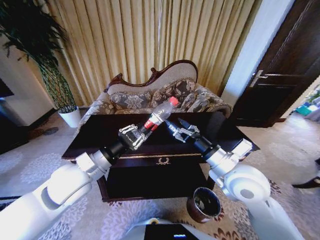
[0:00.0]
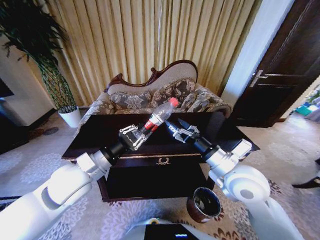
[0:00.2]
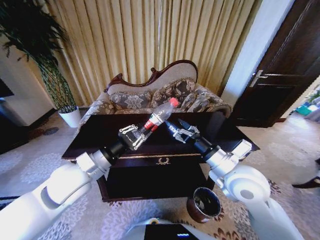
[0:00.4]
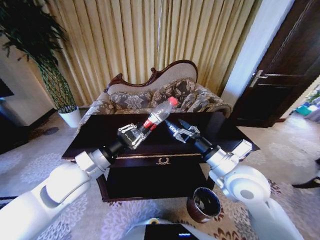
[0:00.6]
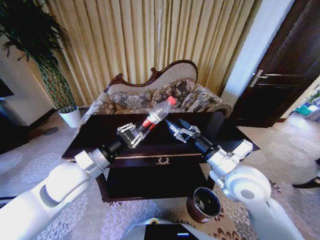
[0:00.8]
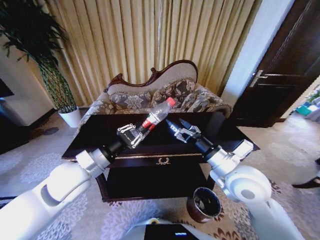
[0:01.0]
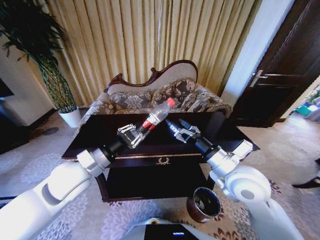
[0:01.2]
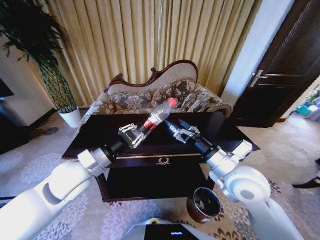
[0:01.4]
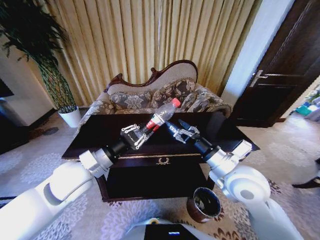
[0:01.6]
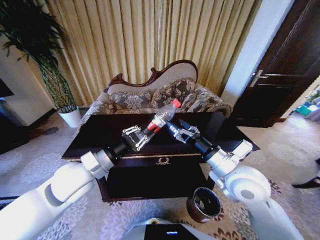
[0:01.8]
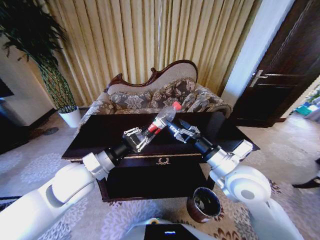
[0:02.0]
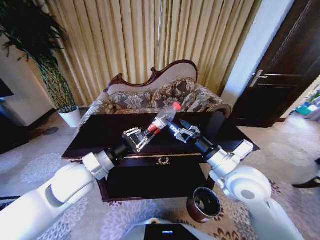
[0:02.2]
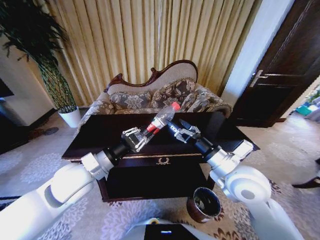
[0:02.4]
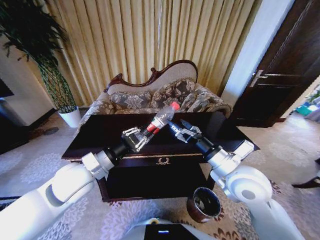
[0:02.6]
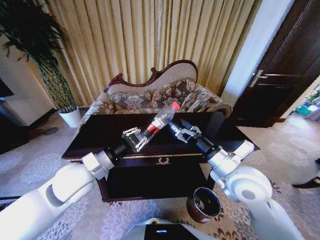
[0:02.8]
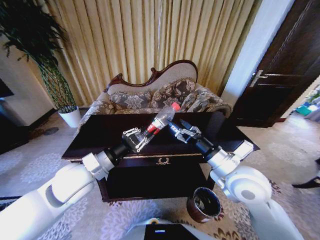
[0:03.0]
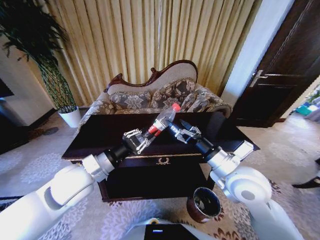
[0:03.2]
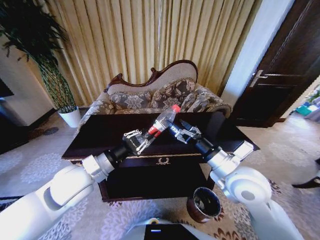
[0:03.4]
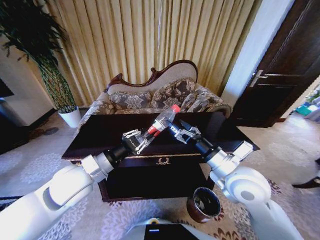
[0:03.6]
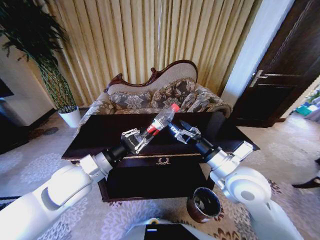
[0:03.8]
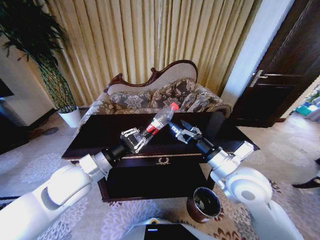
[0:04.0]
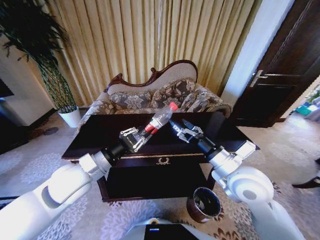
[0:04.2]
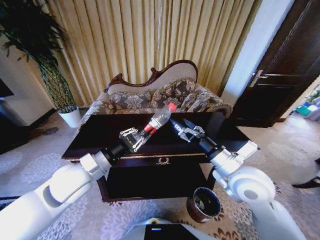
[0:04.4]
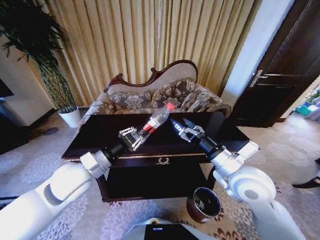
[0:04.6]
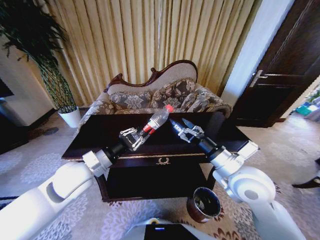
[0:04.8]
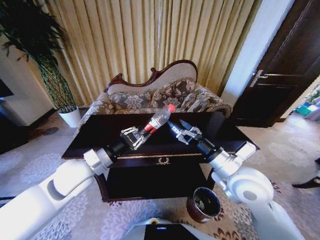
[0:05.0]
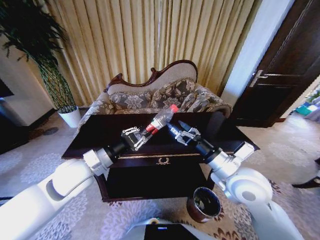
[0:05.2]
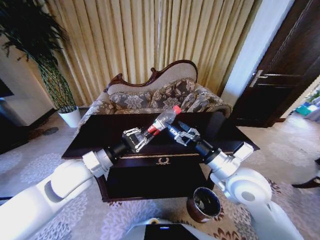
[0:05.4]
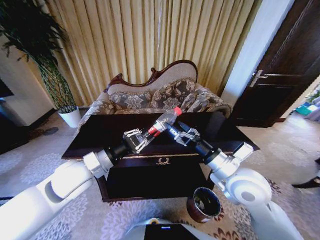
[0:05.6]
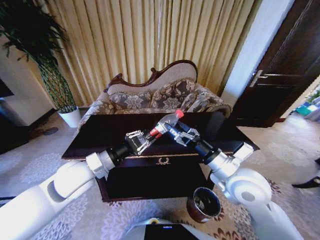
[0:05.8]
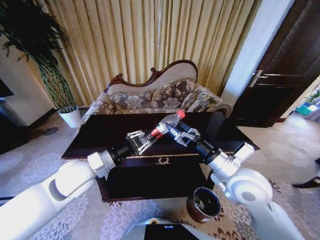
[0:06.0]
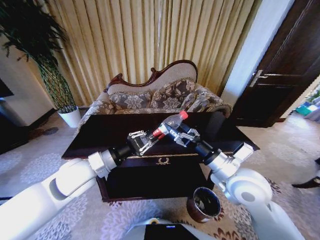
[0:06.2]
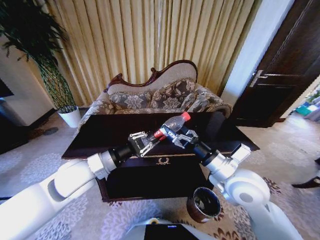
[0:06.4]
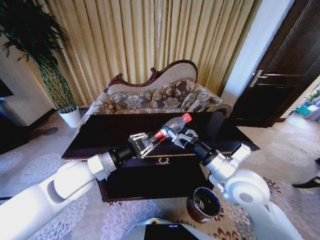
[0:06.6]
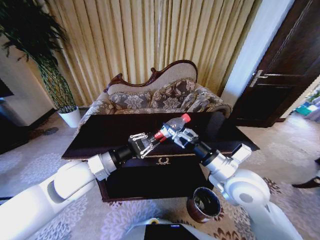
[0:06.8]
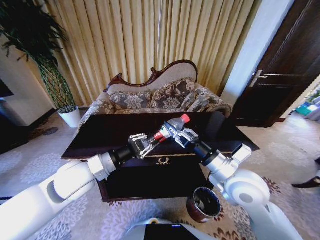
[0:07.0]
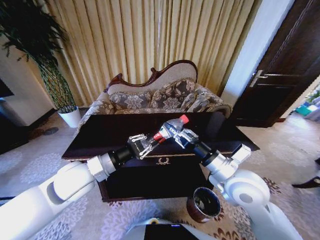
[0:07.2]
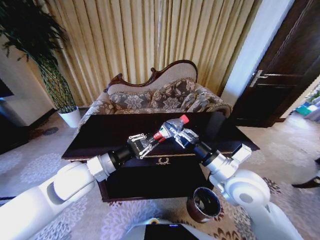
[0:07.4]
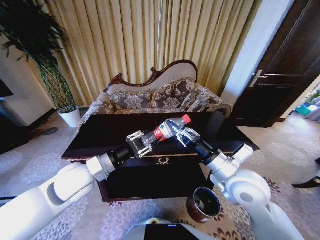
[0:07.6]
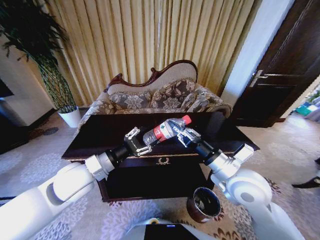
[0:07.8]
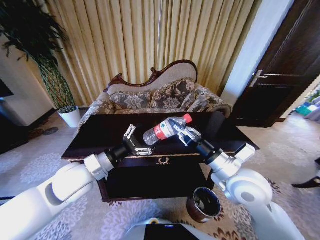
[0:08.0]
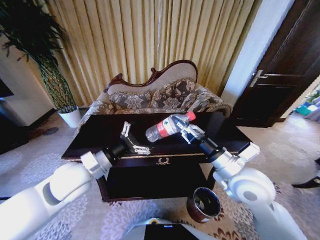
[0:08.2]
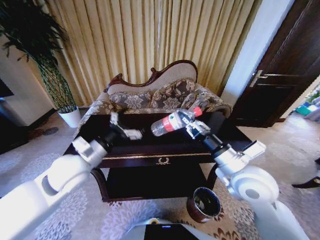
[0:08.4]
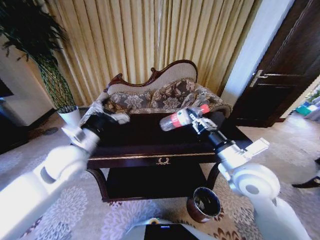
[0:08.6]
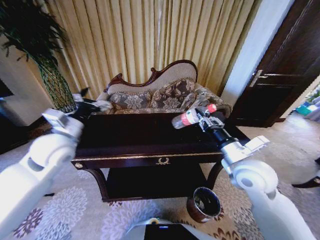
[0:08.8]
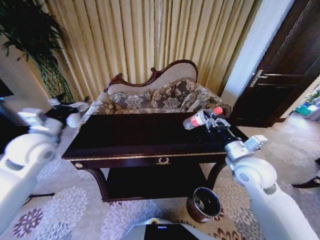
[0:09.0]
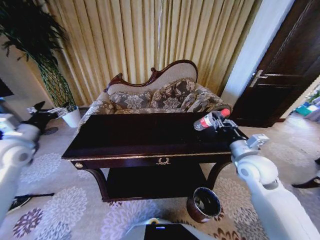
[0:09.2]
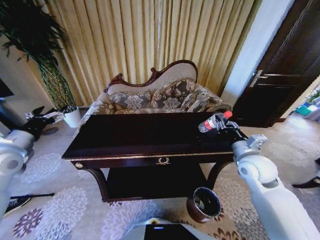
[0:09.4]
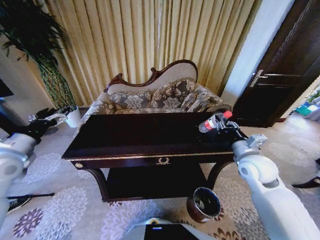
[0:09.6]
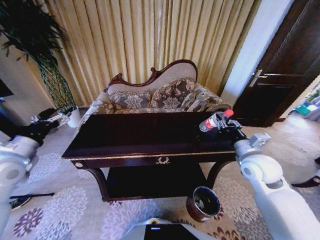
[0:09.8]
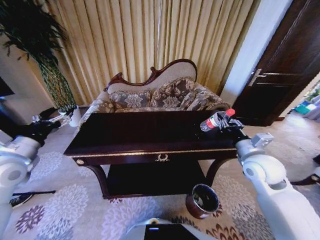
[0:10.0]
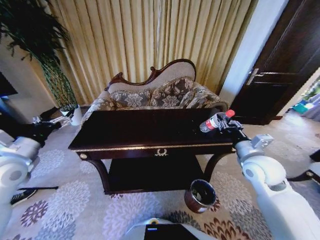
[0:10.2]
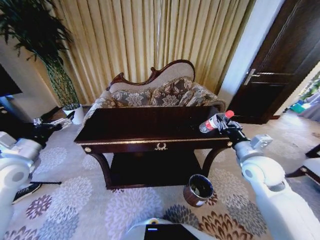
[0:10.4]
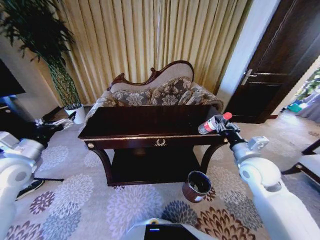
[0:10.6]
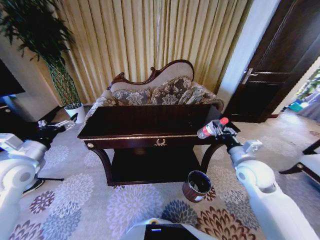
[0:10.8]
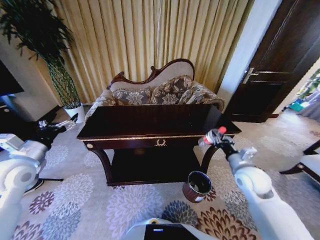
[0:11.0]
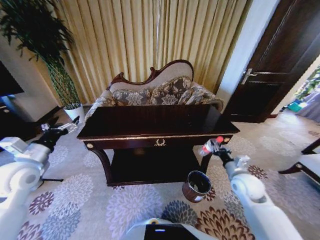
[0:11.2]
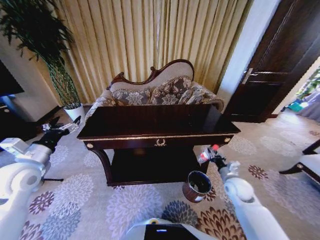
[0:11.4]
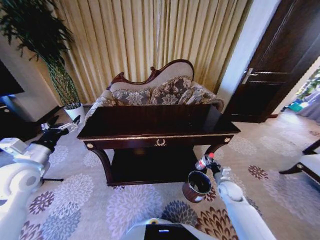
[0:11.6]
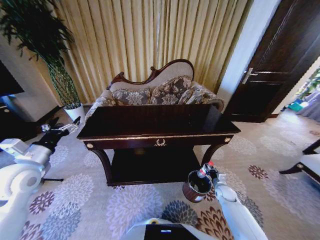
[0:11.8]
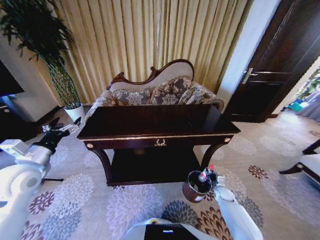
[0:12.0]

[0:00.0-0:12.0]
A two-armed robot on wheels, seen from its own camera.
Task of the whole recording: Move to the front of the table and place the trash on the table into the trash bin.
0:00.0 to 0:04.4: Both grippers stay put.
0:04.4 to 0:06.0: The grippers move only a little.
0:06.0 to 0:07.6: The right gripper closes up.
0:07.6 to 0:09.0: The left gripper is displaced to the left and forward by roughly 15 cm, and opens up, while the right gripper moves to the right, roughly 5 cm.
0:09.0 to 0:10.4: The left gripper moves backward and to the left, some 10 cm.
0:10.4 to 0:12.0: The right gripper travels downward by some 35 cm.

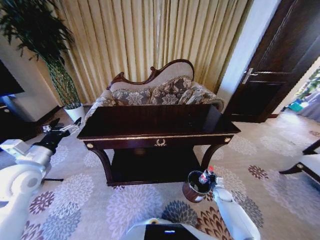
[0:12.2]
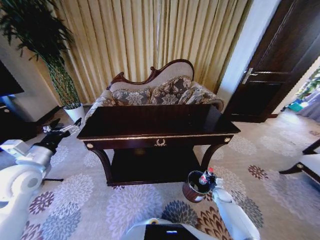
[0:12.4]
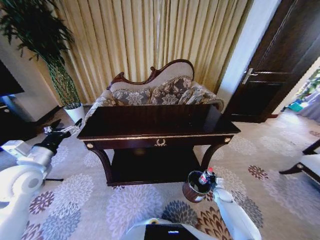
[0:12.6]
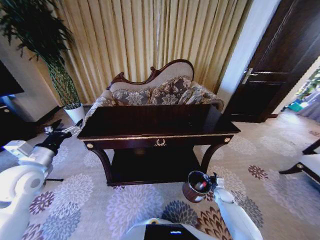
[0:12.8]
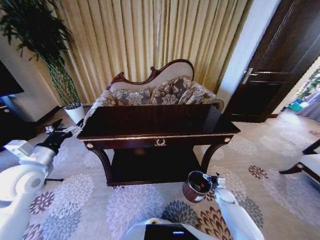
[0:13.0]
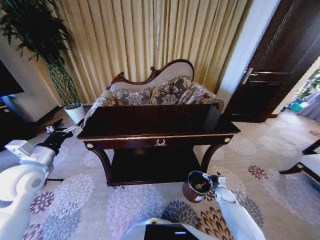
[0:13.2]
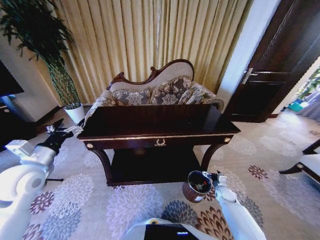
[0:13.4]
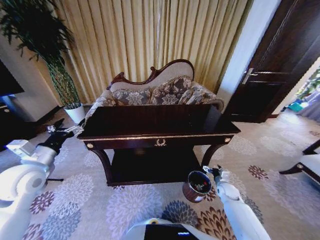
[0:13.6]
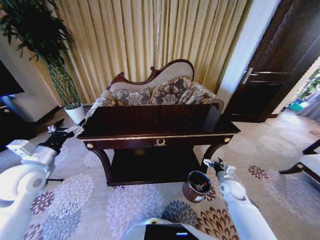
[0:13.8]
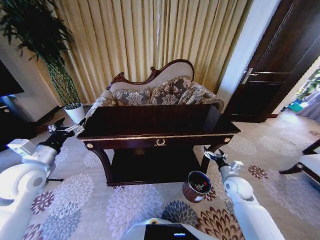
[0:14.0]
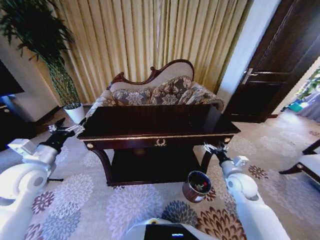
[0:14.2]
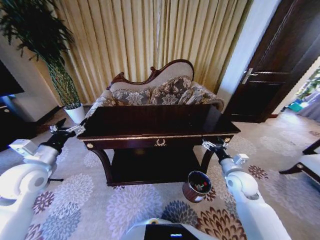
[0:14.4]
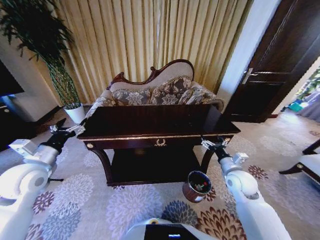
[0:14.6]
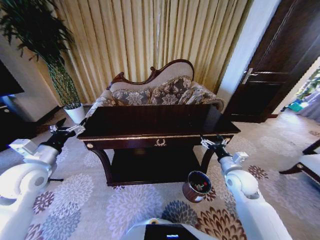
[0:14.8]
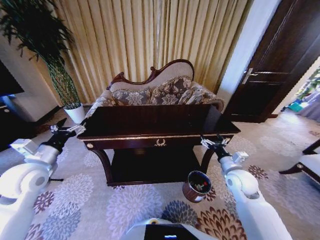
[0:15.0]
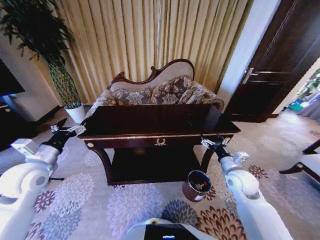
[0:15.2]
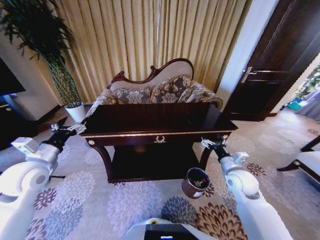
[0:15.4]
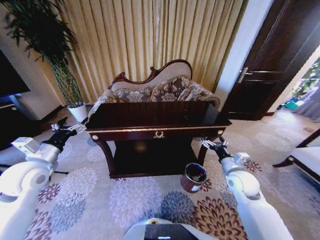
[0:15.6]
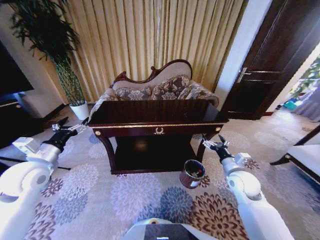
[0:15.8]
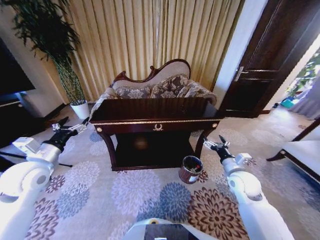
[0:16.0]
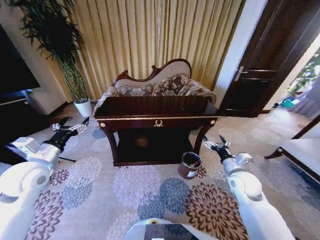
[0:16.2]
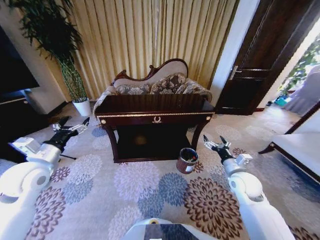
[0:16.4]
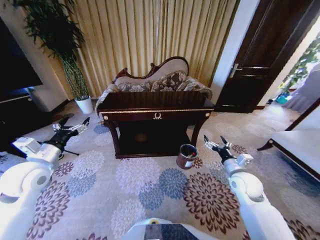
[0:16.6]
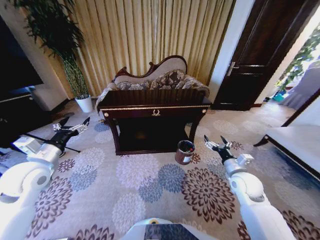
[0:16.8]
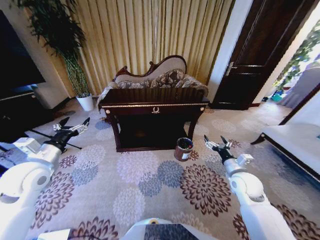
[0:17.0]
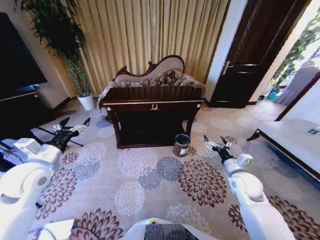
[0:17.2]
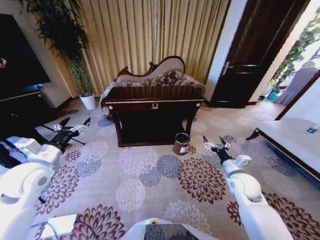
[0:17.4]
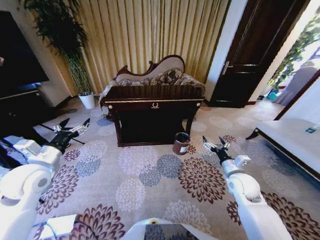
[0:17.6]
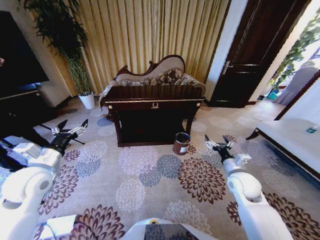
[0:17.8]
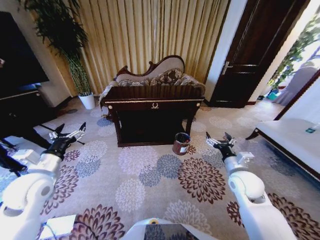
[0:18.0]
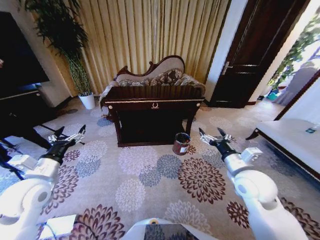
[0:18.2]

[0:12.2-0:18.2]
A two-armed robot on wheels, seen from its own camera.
Task of the whole recording: Move to the front of the table and place the trash on the table into the trash bin.
0:12.2 to 0:13.8: The right gripper heads upward, covering approximately 15 cm, and opens.
0:13.8 to 0:15.2: The right gripper heads upward, covering roughly 15 cm.
0:16.6 to 0:18.2: The right gripper goes some 10 cm upward and to the left.

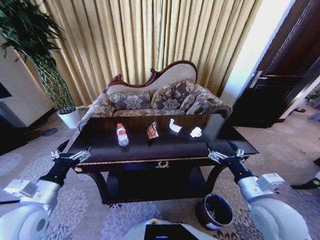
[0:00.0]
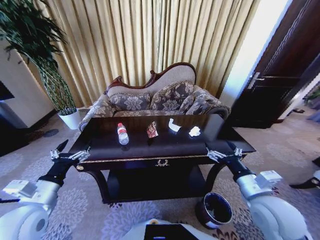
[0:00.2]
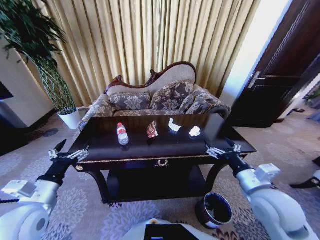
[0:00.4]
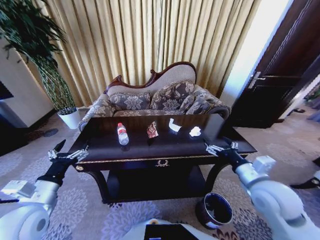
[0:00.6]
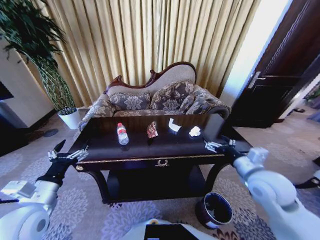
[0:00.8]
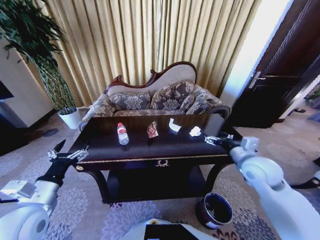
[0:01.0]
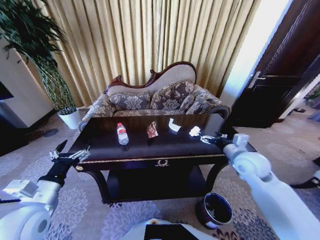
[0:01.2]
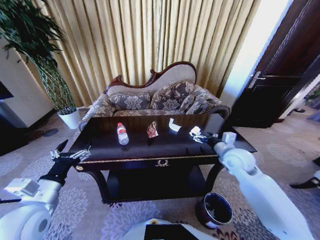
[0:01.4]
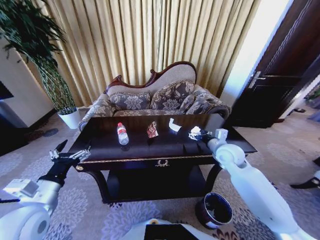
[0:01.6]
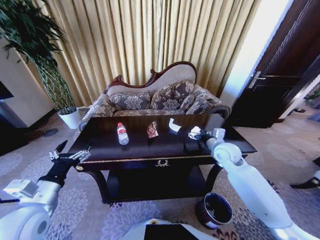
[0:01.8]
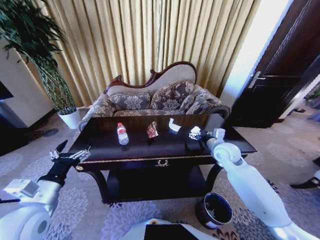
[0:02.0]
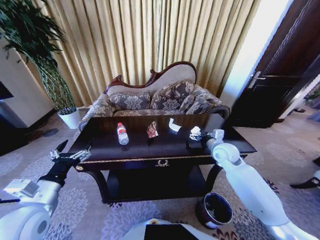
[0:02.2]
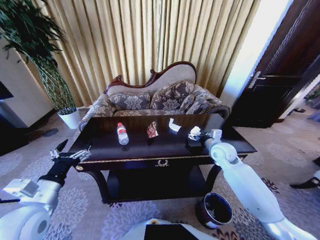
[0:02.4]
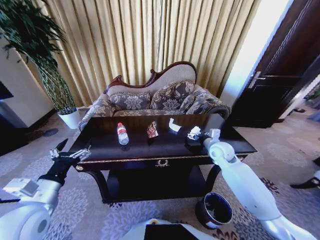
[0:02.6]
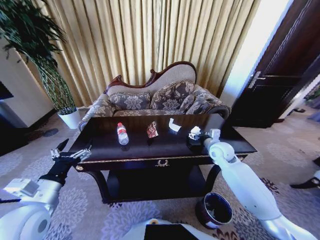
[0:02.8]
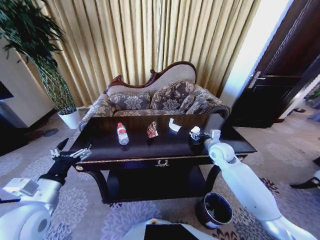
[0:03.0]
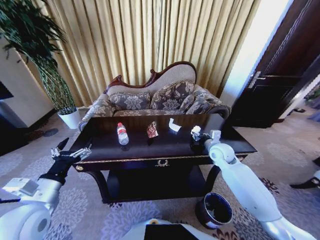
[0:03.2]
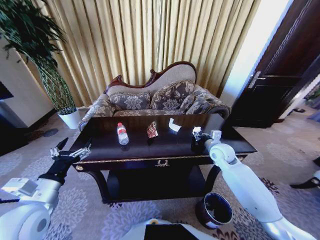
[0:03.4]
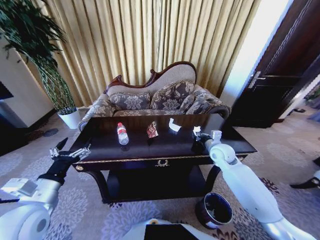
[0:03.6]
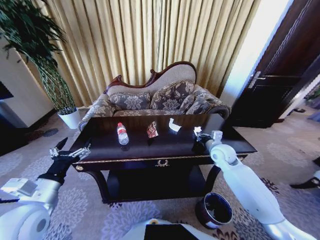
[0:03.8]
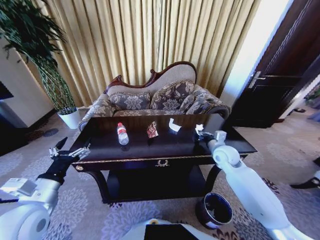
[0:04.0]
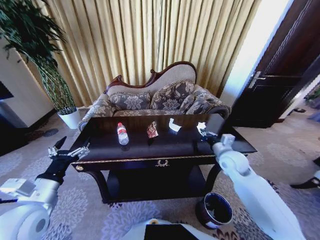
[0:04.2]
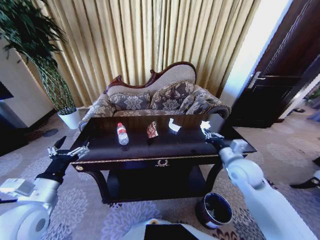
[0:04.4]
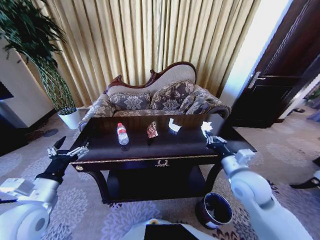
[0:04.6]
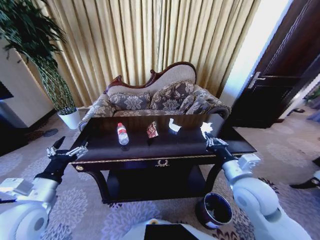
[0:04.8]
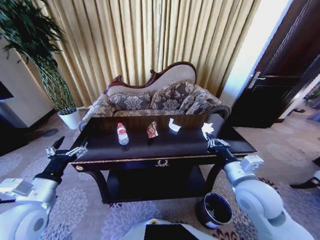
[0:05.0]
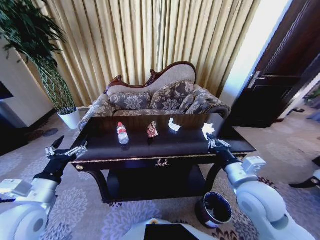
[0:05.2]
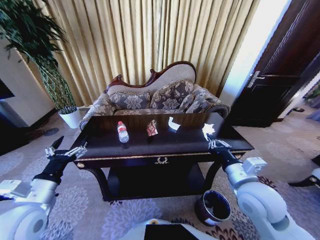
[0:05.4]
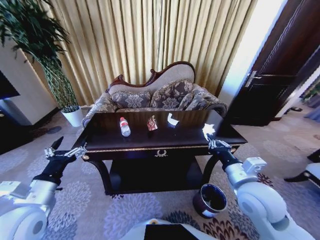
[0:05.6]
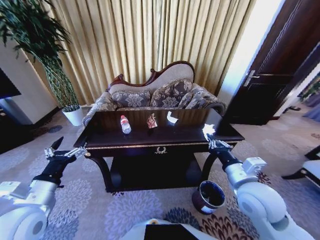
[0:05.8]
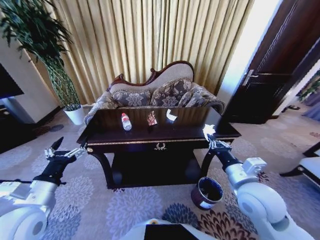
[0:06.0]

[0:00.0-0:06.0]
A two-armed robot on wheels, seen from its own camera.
Task of the whole recording: Move to the front of the table and place the trash on the table into the trash bin.
0:00.0 to 0:01.6: The right gripper shifts about 20 cm forward.
0:01.6 to 0:03.0: The right gripper moves about 5 cm.
0:03.0 to 0:04.4: The right gripper shifts some 10 cm backward, and closes.
0:04.4 to 0:06.0: The right gripper heads backward, covering about 10 cm.
